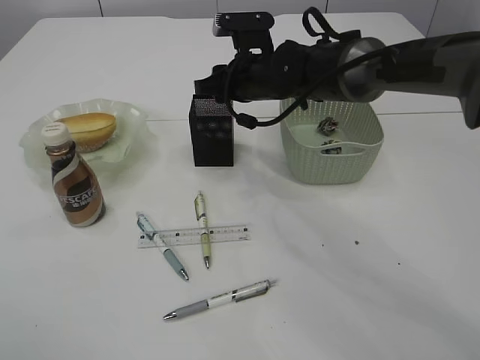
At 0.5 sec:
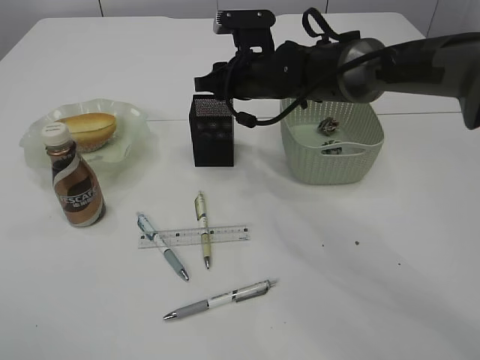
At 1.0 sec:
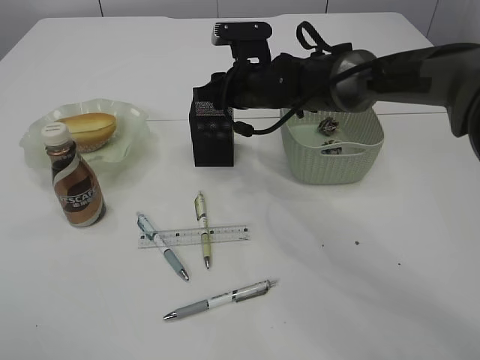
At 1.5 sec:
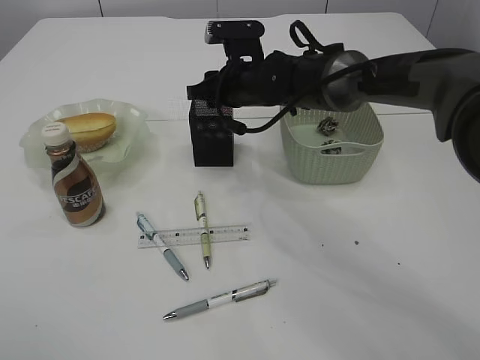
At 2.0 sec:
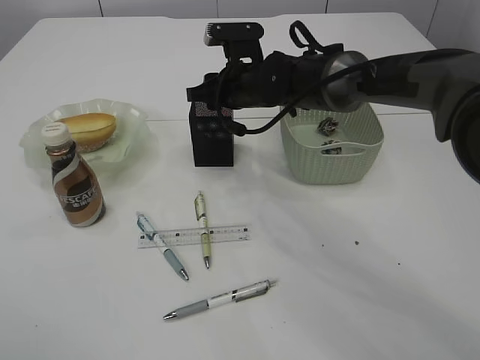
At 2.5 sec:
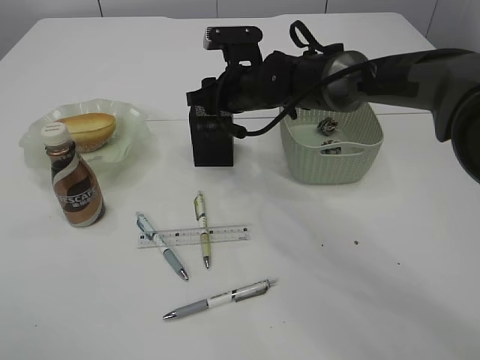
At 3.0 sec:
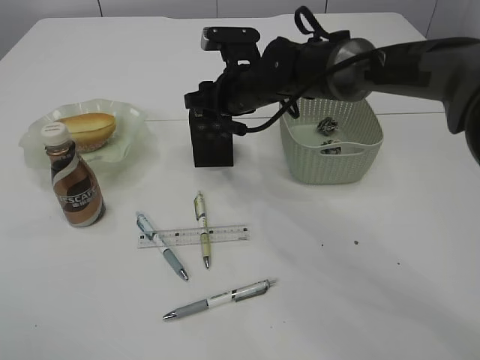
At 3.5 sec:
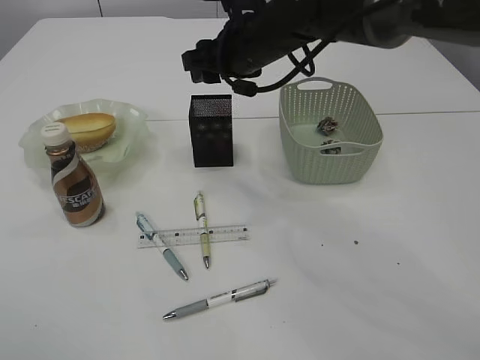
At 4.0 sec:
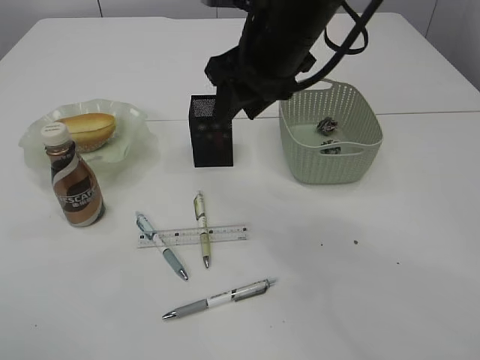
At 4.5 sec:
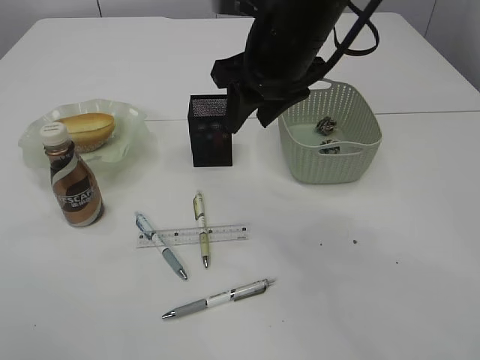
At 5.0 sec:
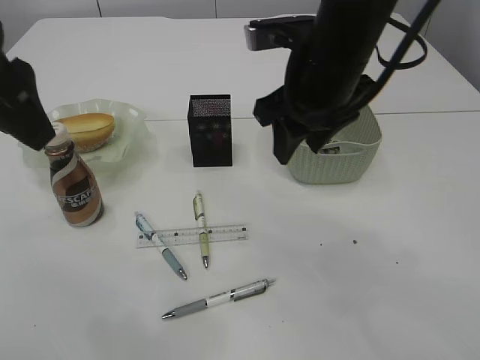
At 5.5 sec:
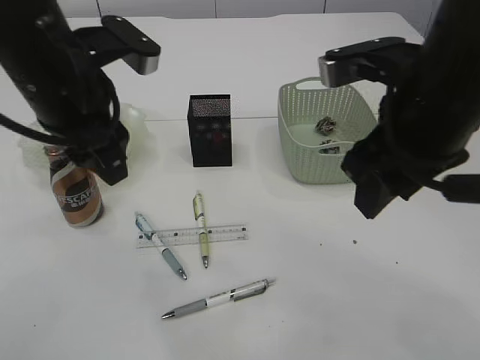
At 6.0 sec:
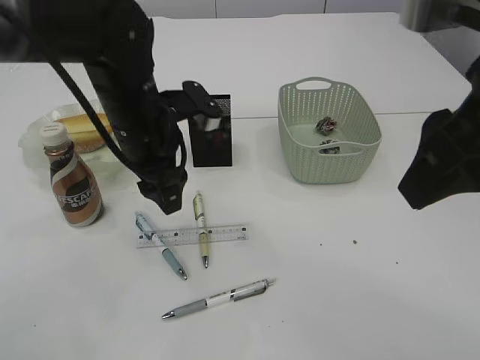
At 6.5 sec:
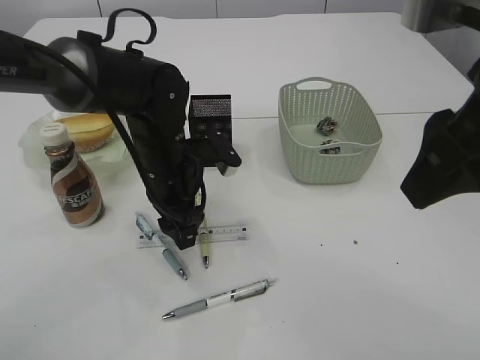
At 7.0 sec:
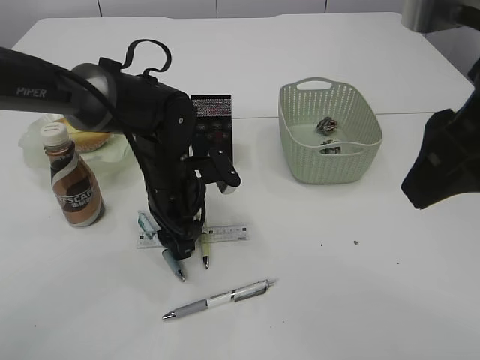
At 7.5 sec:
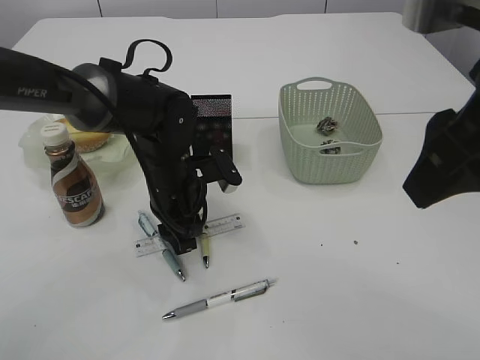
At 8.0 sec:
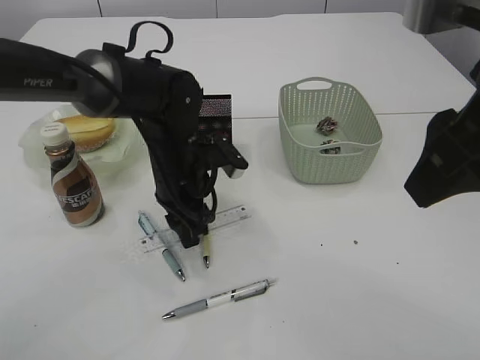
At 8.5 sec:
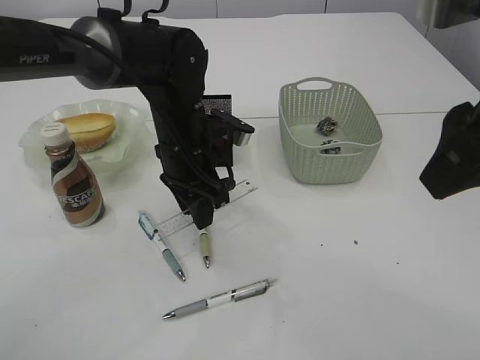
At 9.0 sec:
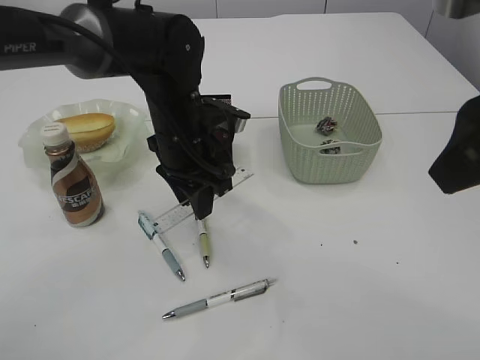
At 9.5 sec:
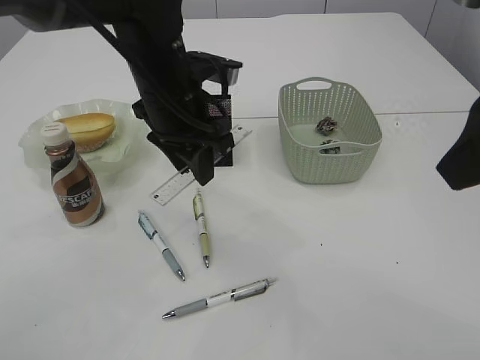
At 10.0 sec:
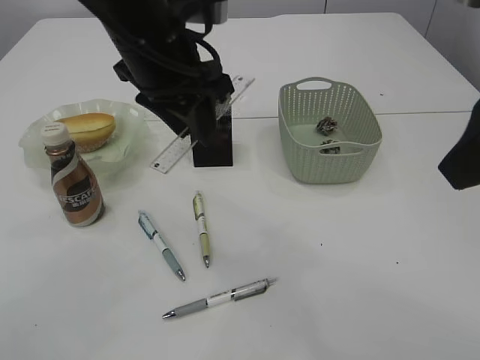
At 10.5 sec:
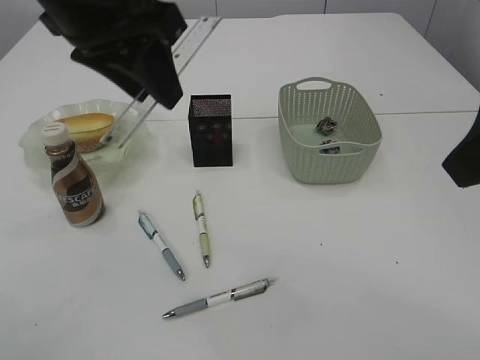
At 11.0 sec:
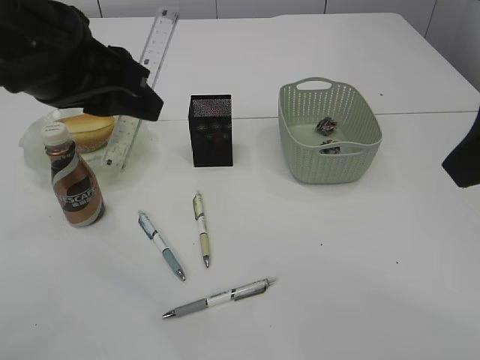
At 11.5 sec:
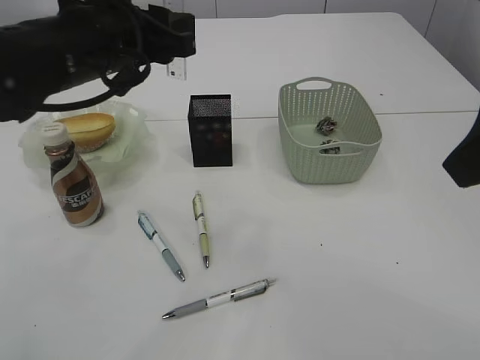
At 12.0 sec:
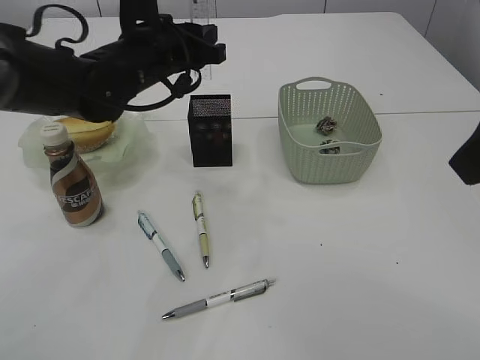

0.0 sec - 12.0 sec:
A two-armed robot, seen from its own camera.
Step, 0.0 sec - 3.0 sec: Place the red pencil sharpener into the pen holder.
Step, 3.5 sec - 9.5 sec: pick up the ruler.
0.0 sec - 2.0 sec: The grippers stay close to where they were, moving slightly.
2.0 sec - 4.0 sec: The right gripper heads upward and backward, covering about 15 cm.
4.0 sec - 6.0 sec: The right gripper shifts some 20 cm backward and to the right. Meanwhile the left gripper goes about 35 cm downward, forward and to the right.
6.0 sec - 8.0 sec: The left gripper heads downward, covering about 10 cm.
8.0 sec - 10.0 sec: The left gripper goes about 15 cm upward.
10.0 sec - 12.0 sec: The left gripper travels forward and downward by about 10 cm.

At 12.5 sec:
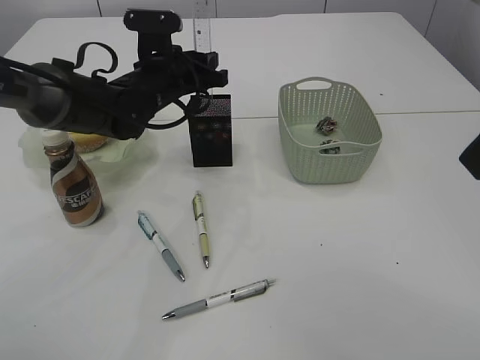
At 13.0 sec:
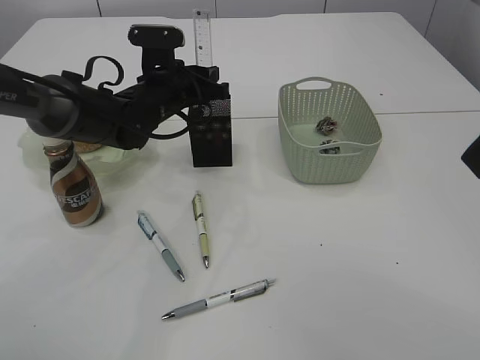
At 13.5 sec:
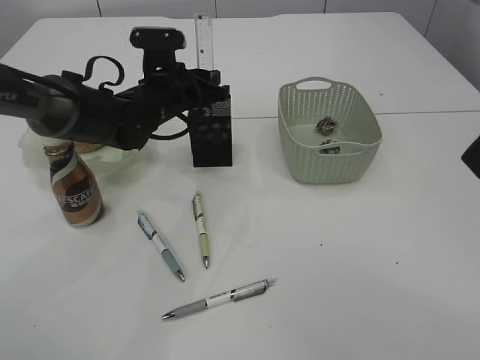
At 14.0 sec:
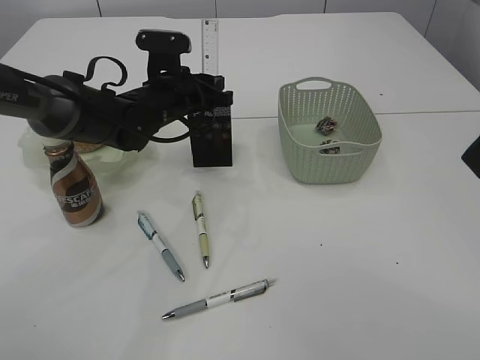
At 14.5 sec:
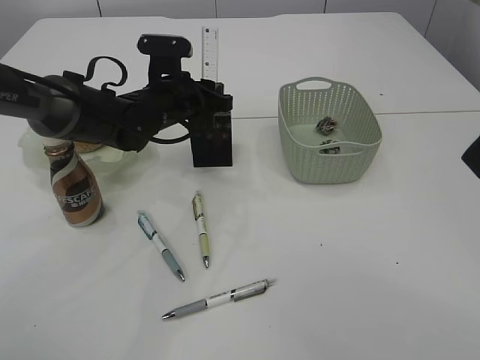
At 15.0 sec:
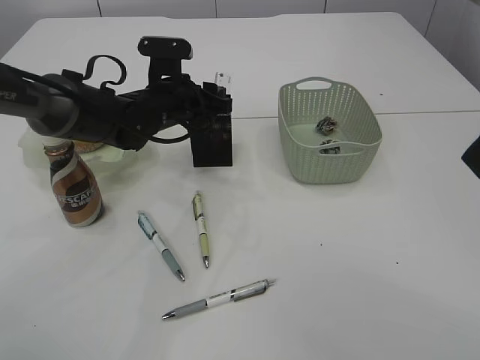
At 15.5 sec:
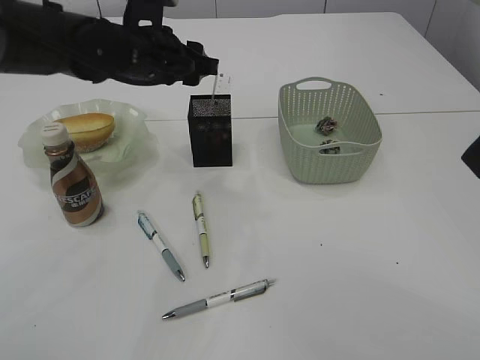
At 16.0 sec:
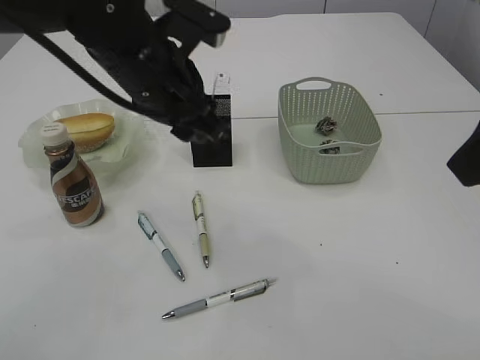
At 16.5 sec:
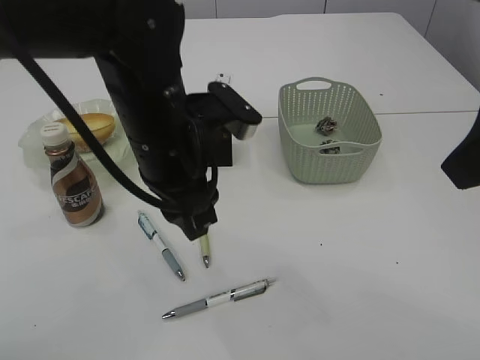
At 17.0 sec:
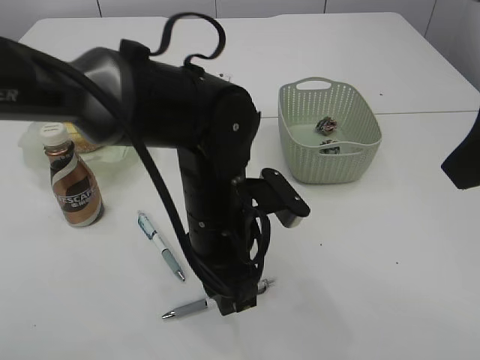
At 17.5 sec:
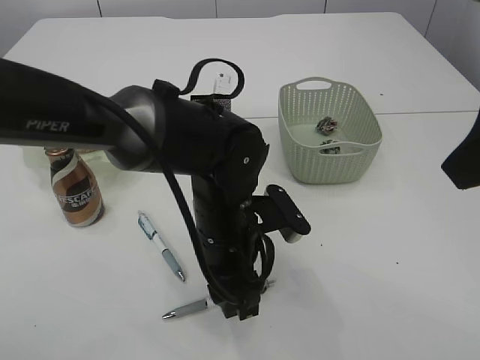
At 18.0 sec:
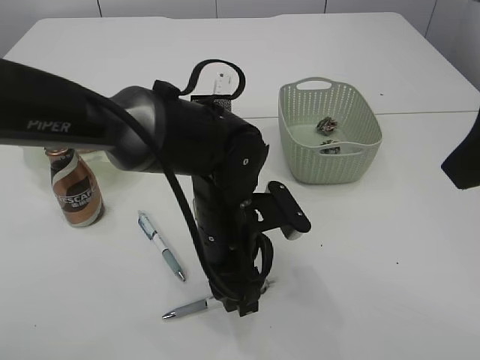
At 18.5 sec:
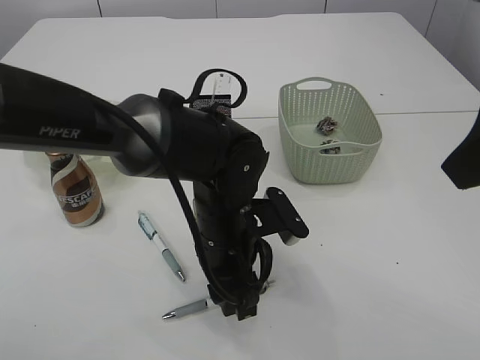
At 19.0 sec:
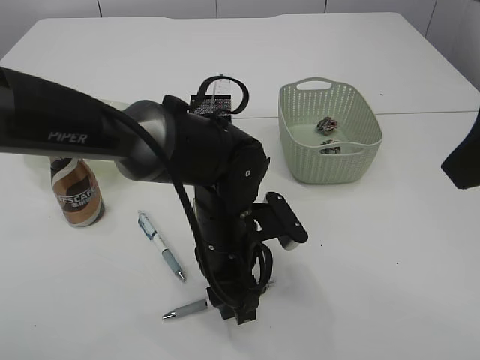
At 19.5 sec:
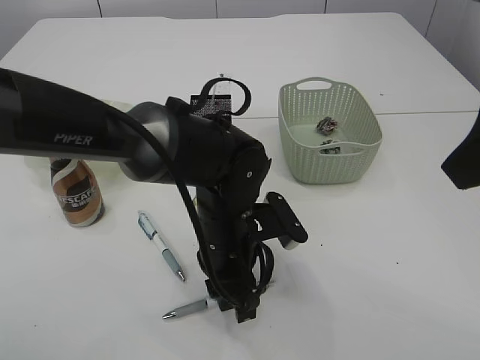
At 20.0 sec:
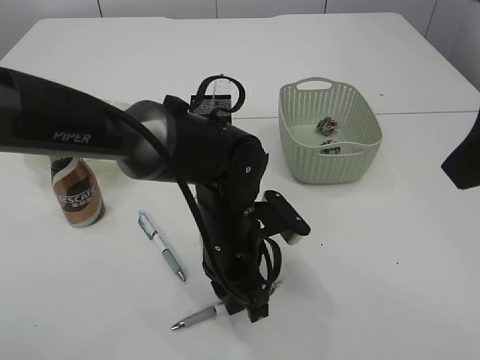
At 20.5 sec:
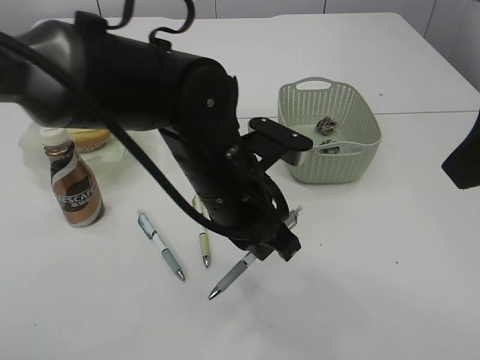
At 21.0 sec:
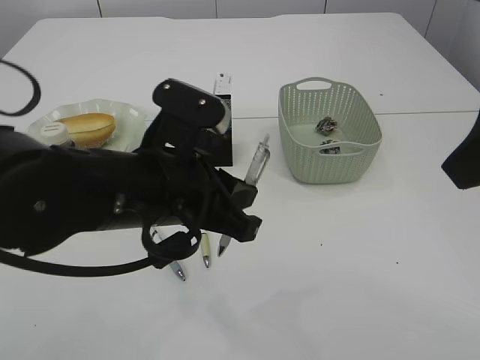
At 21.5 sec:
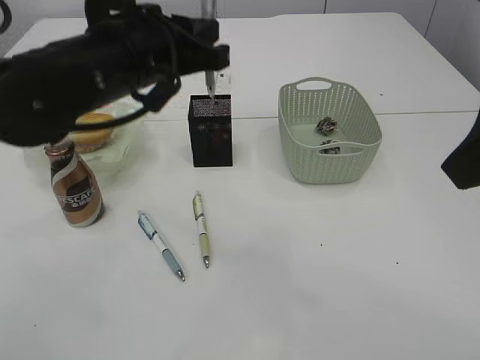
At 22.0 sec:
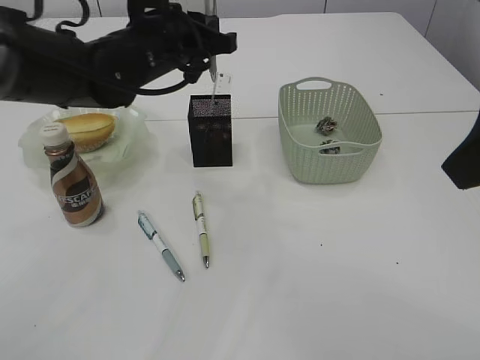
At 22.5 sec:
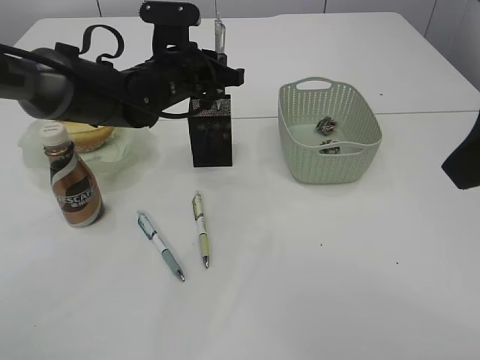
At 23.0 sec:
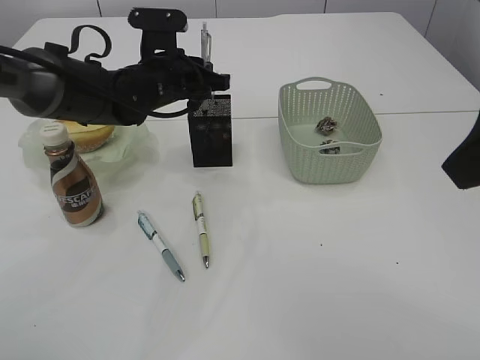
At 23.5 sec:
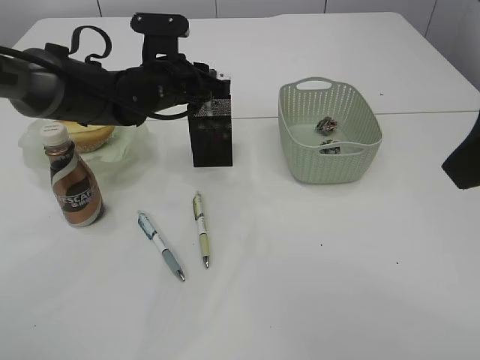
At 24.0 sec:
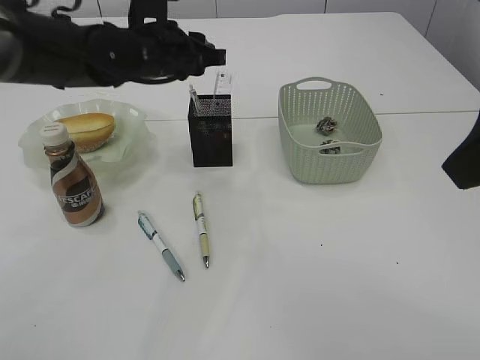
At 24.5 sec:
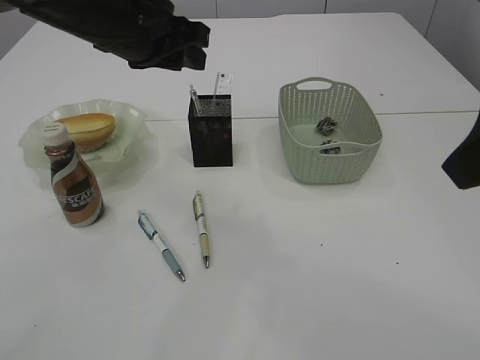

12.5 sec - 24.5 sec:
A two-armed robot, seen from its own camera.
Step, 12.5 sec - 15.5 sec: Place the ruler into the pen holder.
Step, 16.0 sec - 21.0 sec: Pick up the pen with left arm.
Step, 21.5 sec - 23.5 sec: Place the pen into the pen holder.
12.5 sec - 14.5 sec: The grippers move only a little.
14.5 sec - 16.5 sec: The left gripper is displaced backward and upward by approximately 20 cm.
16.5 sec - 18.5 sec: The left gripper is displaced downward and to the right by roughly 15 cm.
18.5 sec - 20.5 sec: The left gripper is displaced upward by some 5 cm, and closes its fingers.
20.5 sec - 22.5 sec: The left gripper goes some 20 cm forward and to the left.
22.5 sec - 24.5 sec: The left gripper goes approximately 10 cm upward and backward, and opens up.

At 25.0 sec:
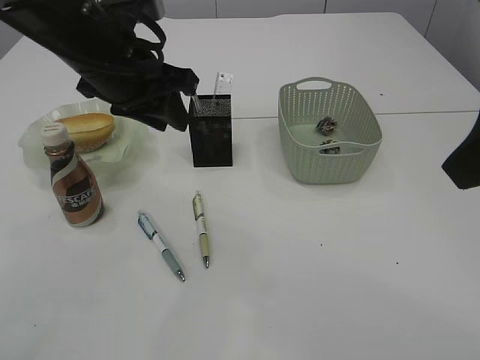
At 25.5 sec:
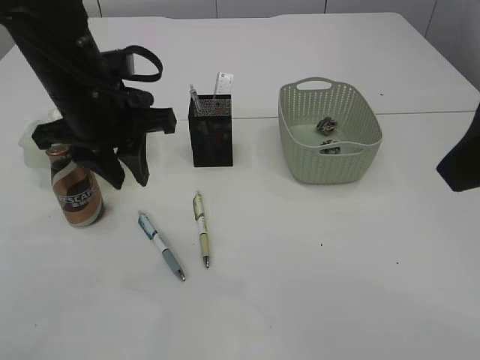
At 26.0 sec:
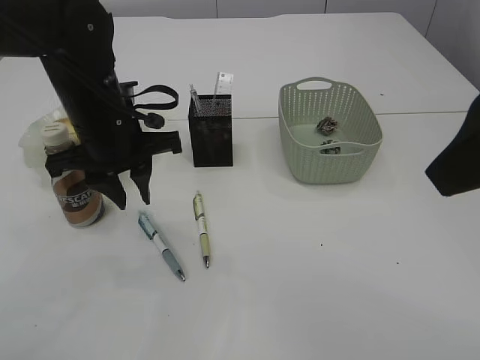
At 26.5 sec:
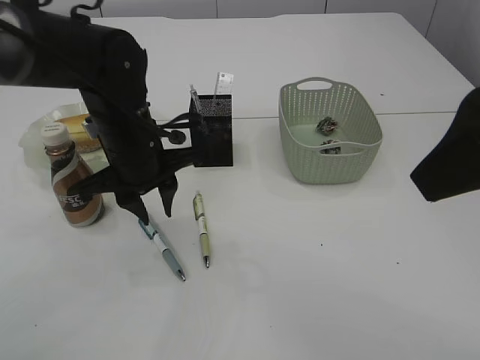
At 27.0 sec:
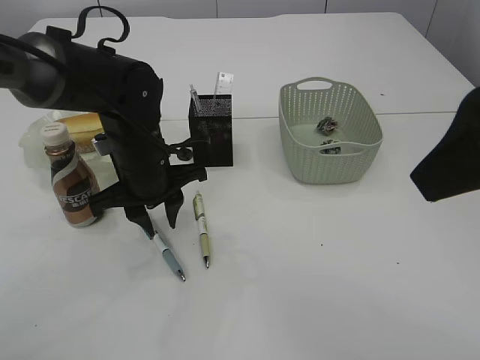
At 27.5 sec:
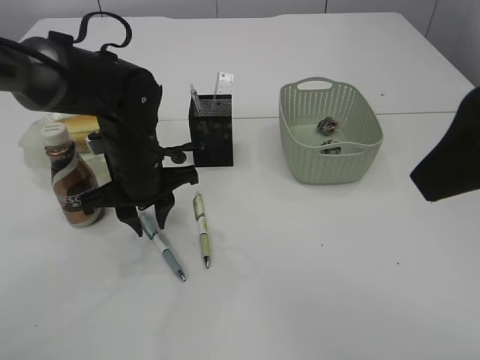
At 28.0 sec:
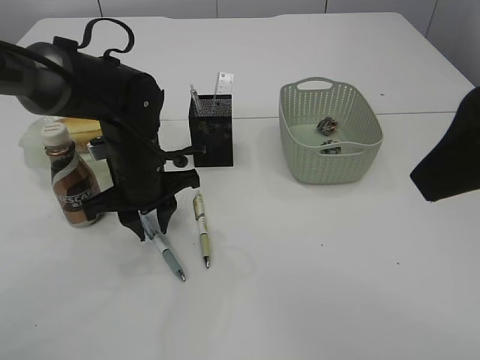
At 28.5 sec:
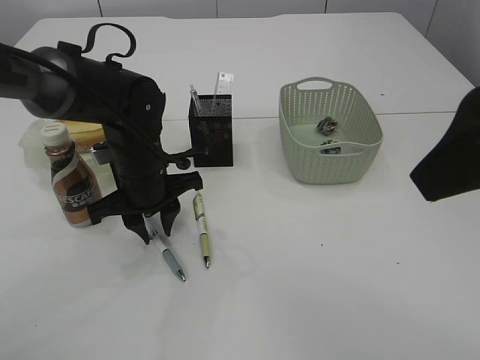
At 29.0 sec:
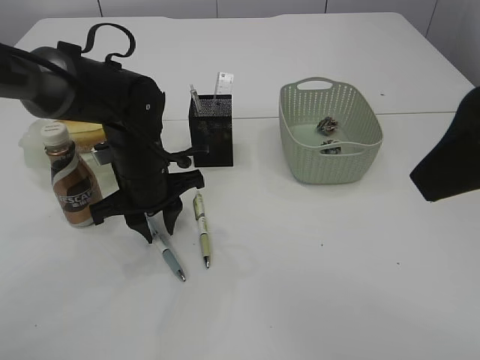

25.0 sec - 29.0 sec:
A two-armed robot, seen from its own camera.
25.0 sec - 27.0 sec: The left gripper moves downward, some 15 cm.
27.0 sec - 29.0 sec: There are only small adjustments of the grippers.
